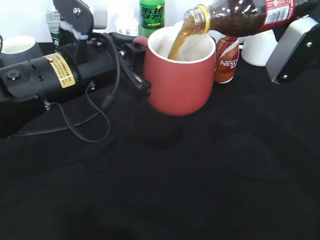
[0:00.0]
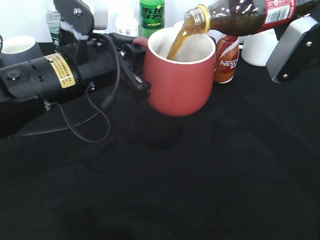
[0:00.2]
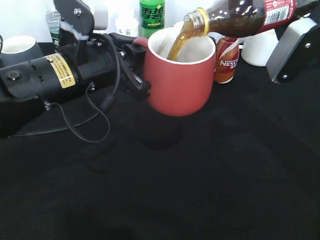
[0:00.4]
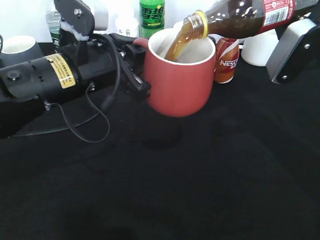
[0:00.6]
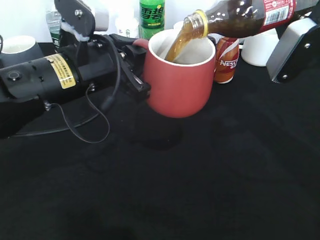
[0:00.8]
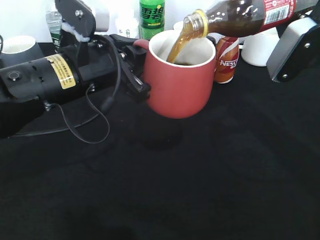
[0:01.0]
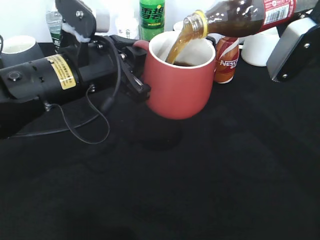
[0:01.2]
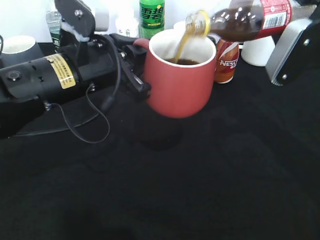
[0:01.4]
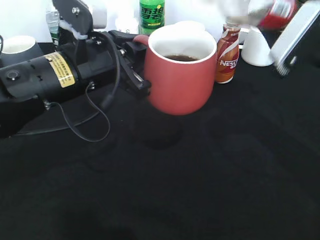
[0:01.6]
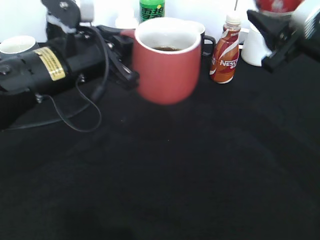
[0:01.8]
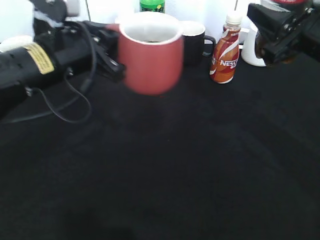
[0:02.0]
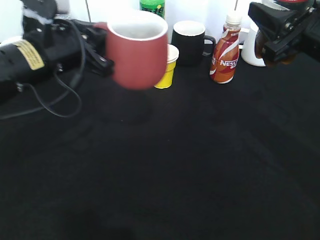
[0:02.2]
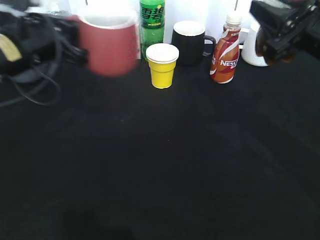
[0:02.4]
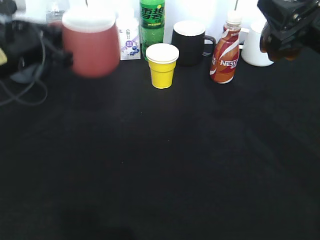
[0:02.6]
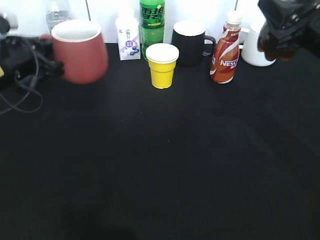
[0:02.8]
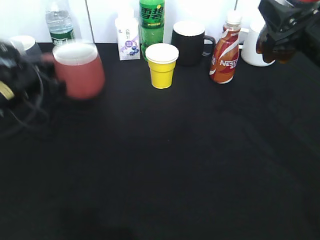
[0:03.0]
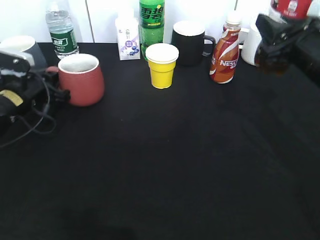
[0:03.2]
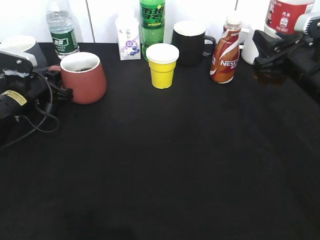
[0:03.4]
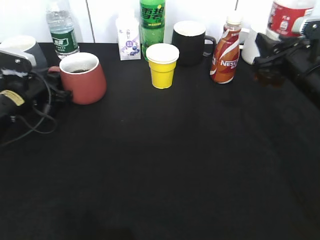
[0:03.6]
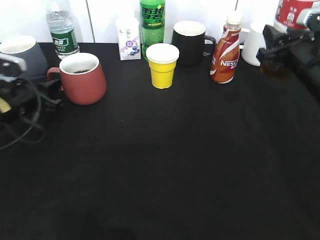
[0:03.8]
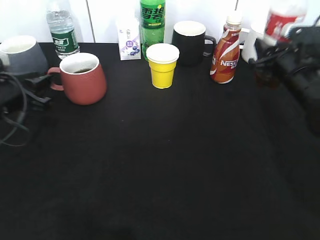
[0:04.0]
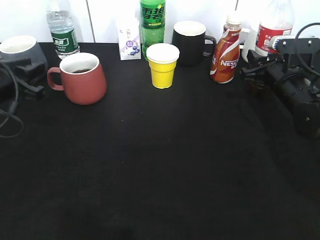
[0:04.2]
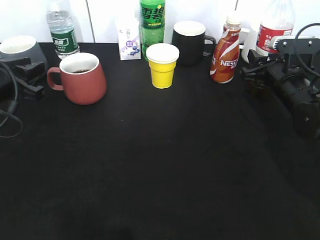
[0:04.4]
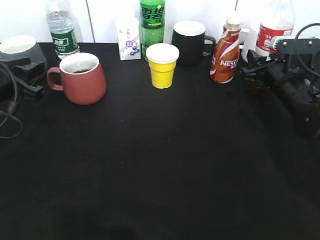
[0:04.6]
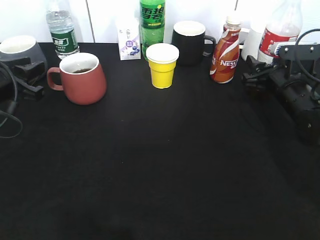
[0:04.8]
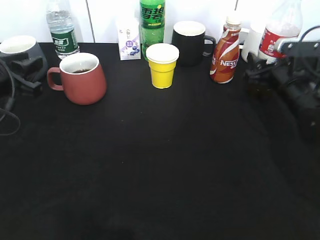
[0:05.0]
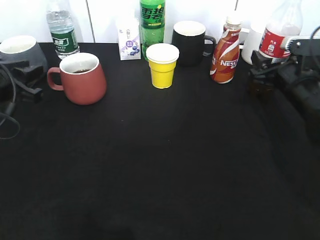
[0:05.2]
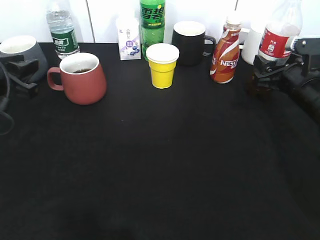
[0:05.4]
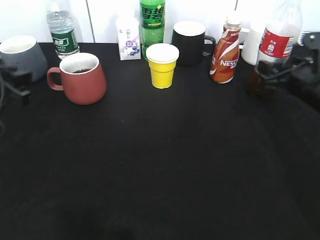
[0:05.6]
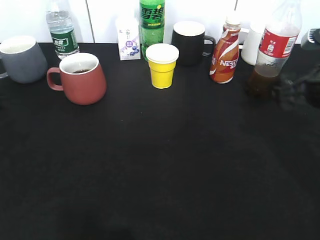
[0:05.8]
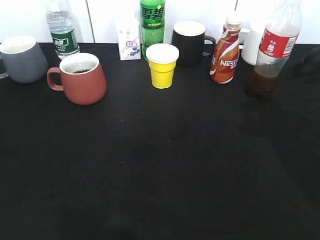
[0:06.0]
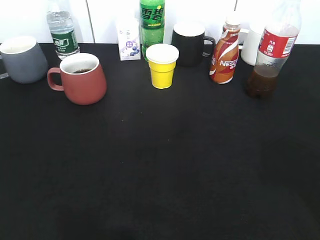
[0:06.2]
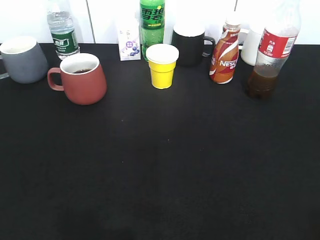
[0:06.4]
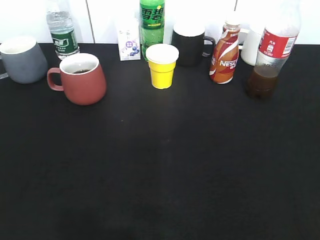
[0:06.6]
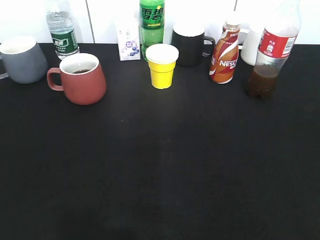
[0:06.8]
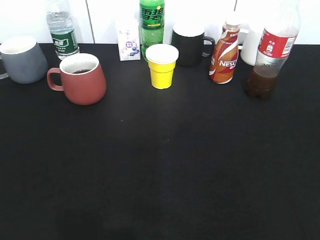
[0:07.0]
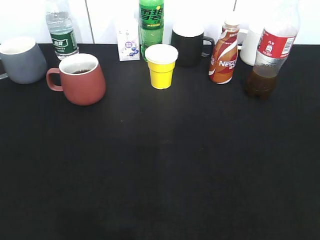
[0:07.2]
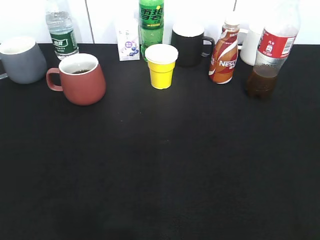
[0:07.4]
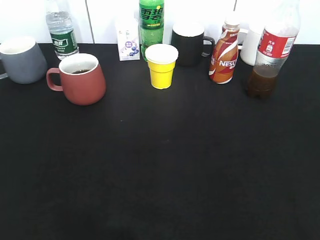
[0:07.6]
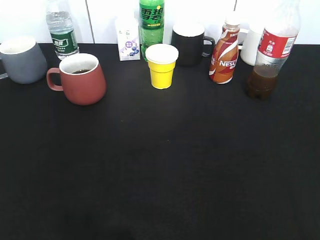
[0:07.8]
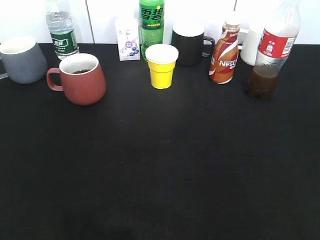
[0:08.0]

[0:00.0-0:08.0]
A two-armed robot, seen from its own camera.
Step, 0:01.6 to 0:05.4: Place the cola bottle on the table with right gripper.
0:01.6 to 0:03.2: The right gripper shifts by roughly 5 cm. Meanwhile the left gripper is displaced to the left, downward and forward by approximately 25 cm.
0:03.2 to 0:04.8: The left gripper travels backward and upward by roughly 10 cm, and opens. The right gripper travels downward and forward by some 10 cm, and opens.
0:04.8 to 0:06.4: The right gripper is displaced backward and upward by roughly 40 cm; the left gripper heads backward, covering approximately 30 cm.
0:06.4 to 0:08.0: The right gripper heads downward, covering roughly 5 cm.

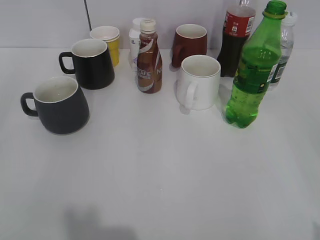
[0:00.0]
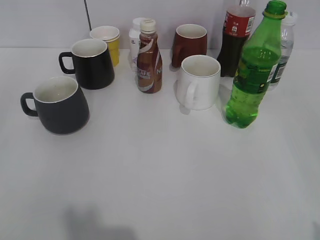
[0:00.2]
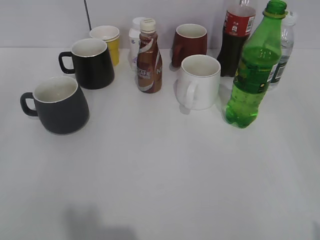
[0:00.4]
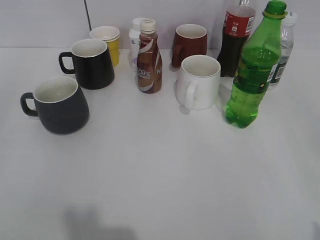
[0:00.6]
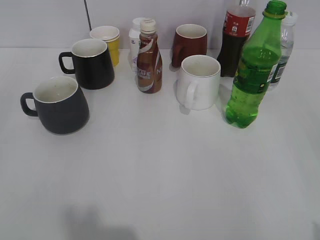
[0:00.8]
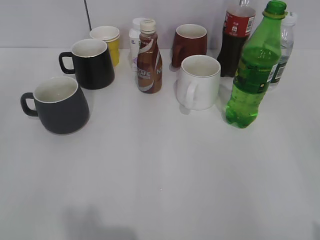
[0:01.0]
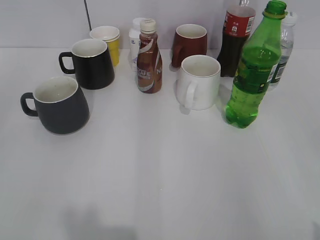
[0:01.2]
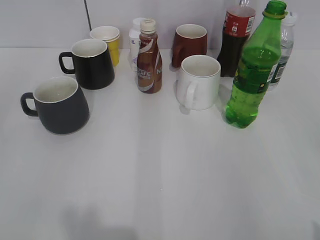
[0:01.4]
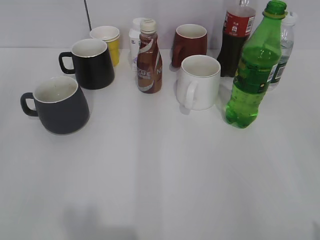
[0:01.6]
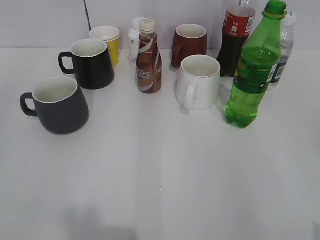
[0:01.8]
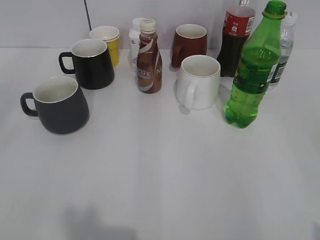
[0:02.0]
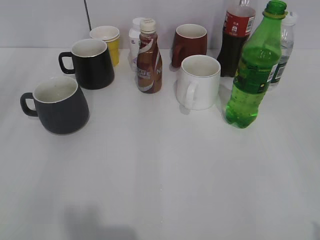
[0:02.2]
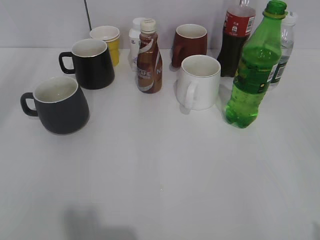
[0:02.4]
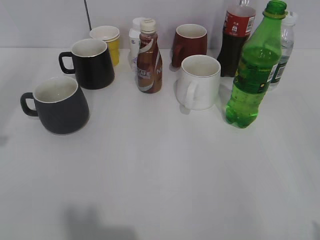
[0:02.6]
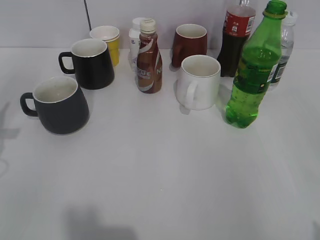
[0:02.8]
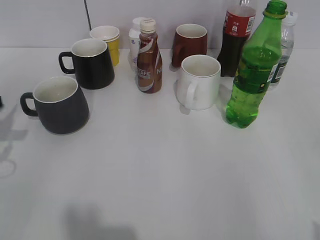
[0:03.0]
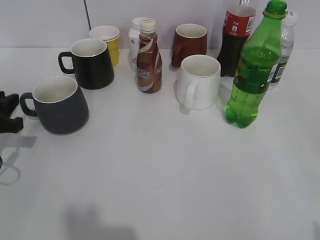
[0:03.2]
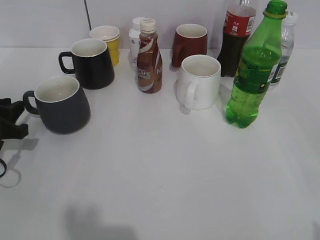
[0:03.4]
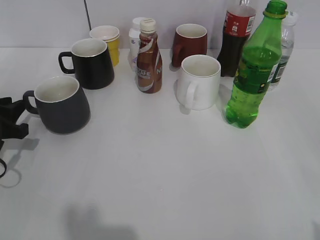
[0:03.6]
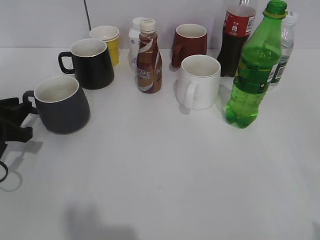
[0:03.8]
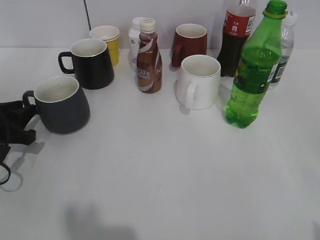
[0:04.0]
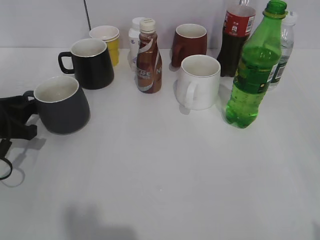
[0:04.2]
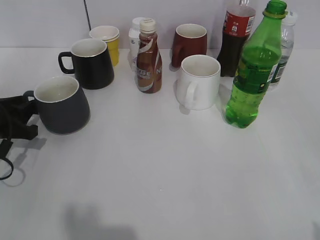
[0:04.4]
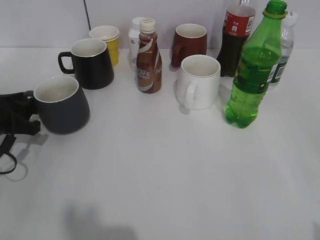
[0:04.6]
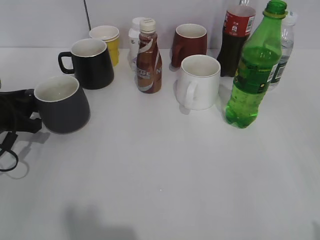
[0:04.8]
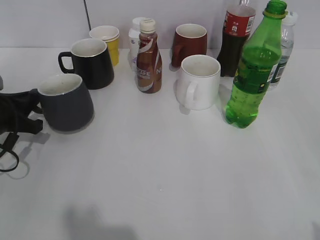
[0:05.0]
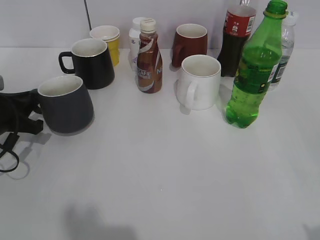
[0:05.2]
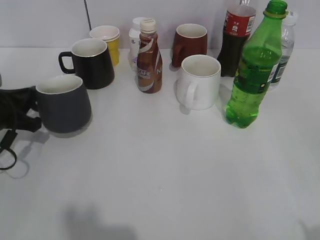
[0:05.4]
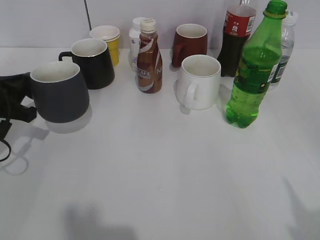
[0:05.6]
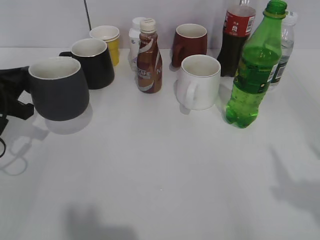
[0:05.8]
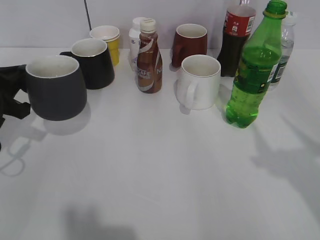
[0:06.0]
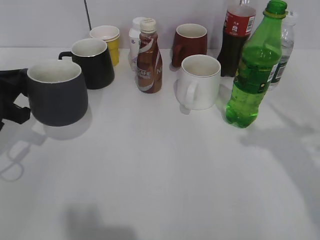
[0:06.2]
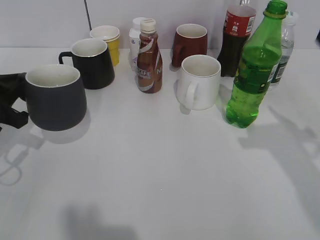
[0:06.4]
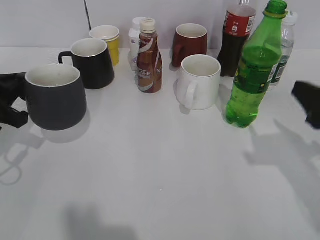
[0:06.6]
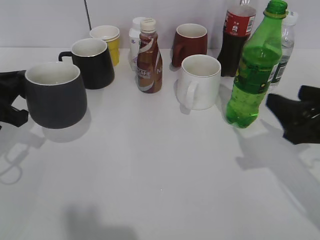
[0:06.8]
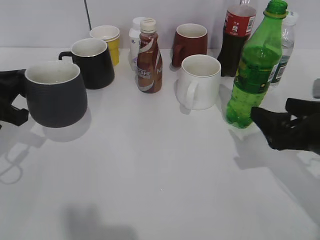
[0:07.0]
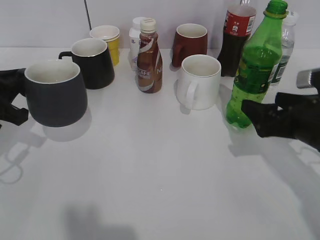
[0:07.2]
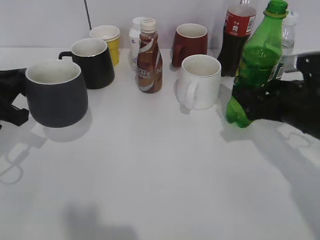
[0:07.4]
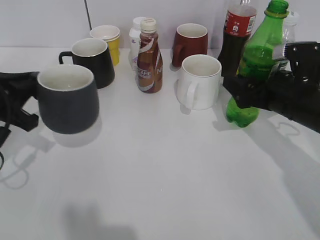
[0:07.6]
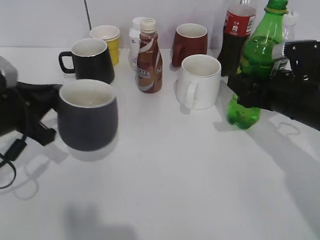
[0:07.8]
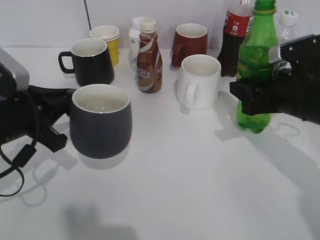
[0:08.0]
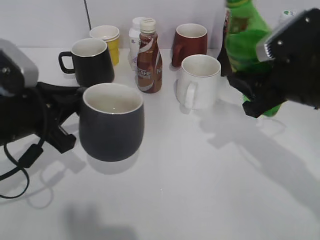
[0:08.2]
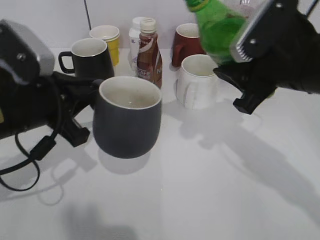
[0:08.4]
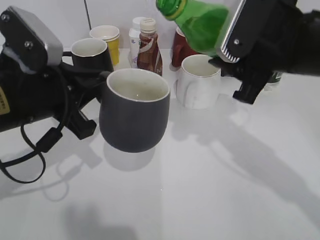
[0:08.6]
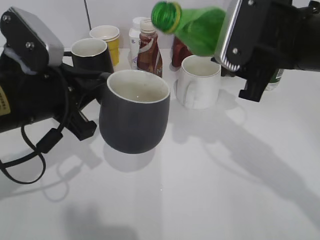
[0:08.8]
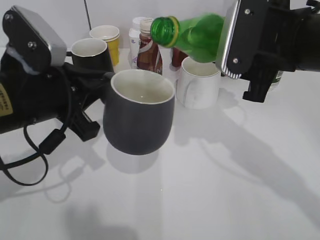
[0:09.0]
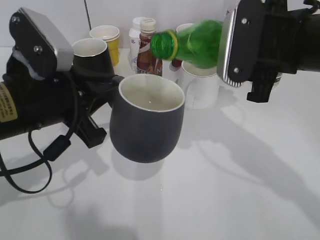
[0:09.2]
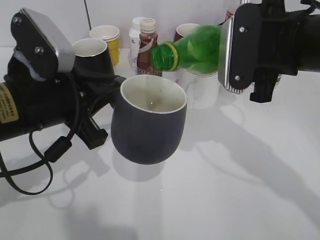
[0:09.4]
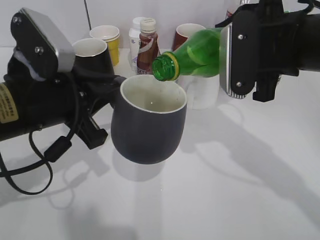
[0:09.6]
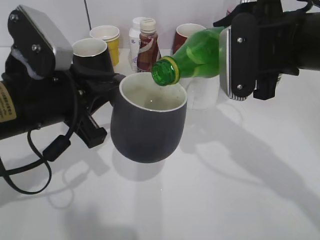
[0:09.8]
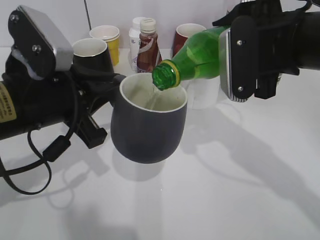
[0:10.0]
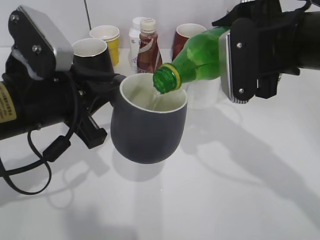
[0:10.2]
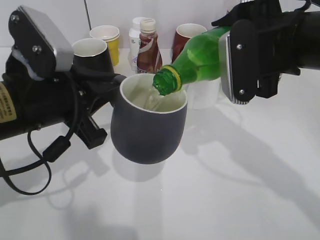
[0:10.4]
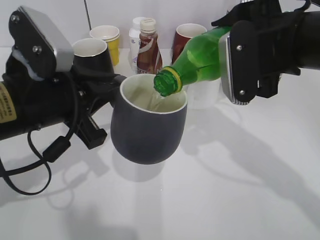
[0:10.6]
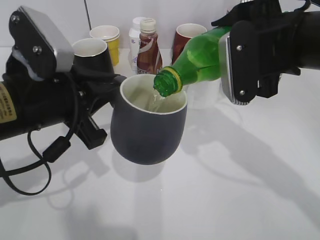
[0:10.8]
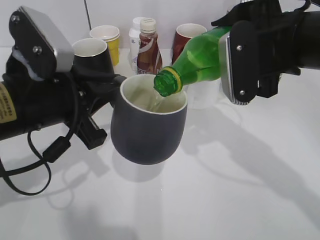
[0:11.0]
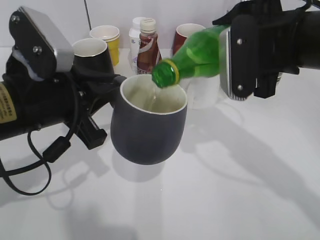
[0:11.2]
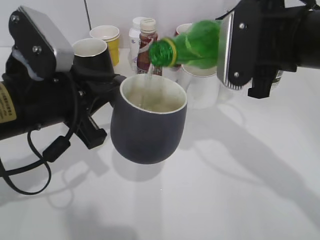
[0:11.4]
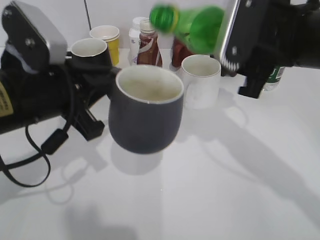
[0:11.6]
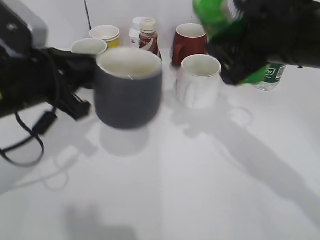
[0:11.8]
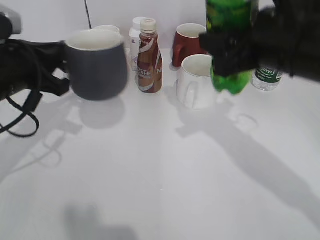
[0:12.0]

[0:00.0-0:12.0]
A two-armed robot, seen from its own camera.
Step, 0:01.8 to 0:05.0: Grasp the grey cup with left gripper.
Step, 0:05.2 to 0:06.4: Lift the grey cup with left gripper.
Step, 0:06.6 to 0:07.6: Grasp the bottle with sprite with right gripper.
Step, 0:08.0 to 0:11.4: Pour the sprite from bottle to cup with right gripper.
0:01.6 to 0:03.0: The left gripper travels forward by some 25 cm.
0:03.0 to 0:04.4: The left gripper moves downward, some 5 cm.
0:04.4 to 0:06.0: The right gripper moves forward and upward, about 15 cm. The left gripper travels upward by roughly 5 cm, and closes its fingers.
0:06.0 to 0:07.6: The right gripper is displaced downward and forward by approximately 30 cm, and opens its fingers.
0:07.6 to 0:09.0: The left gripper moves to the right, approximately 10 cm. The right gripper goes some 15 cm upward and to the left, and closes its fingers.
0:10.4 to 0:12.0: The left gripper travels to the left and forward by approximately 10 cm.

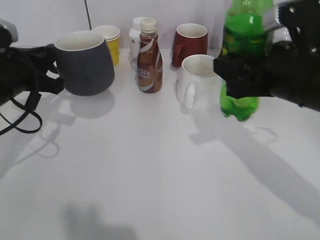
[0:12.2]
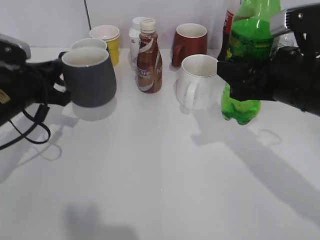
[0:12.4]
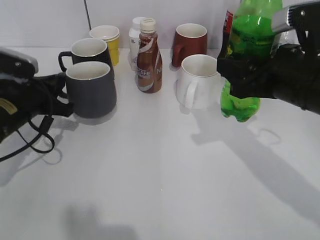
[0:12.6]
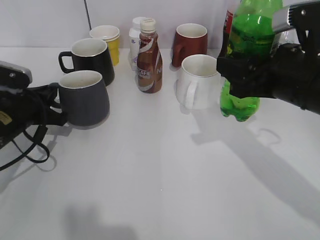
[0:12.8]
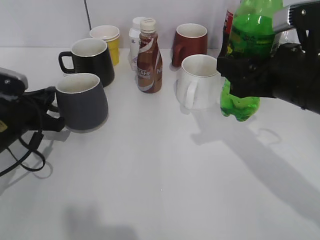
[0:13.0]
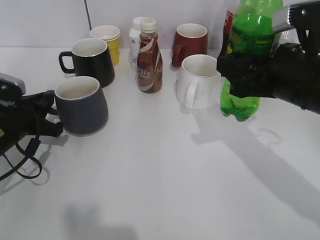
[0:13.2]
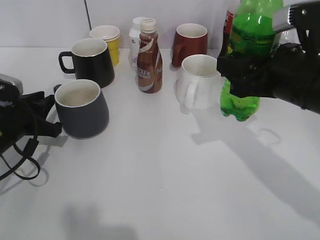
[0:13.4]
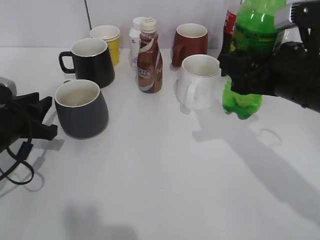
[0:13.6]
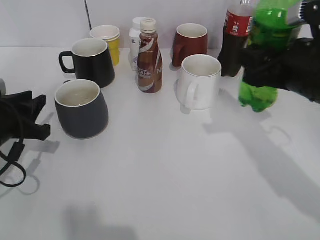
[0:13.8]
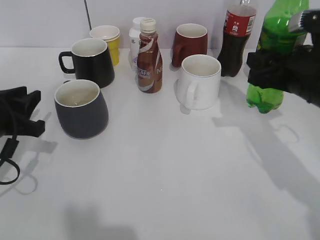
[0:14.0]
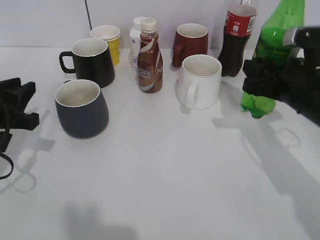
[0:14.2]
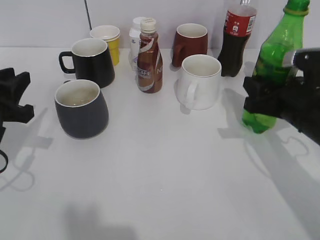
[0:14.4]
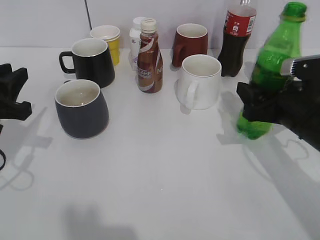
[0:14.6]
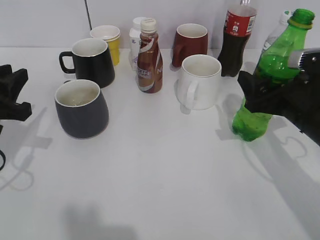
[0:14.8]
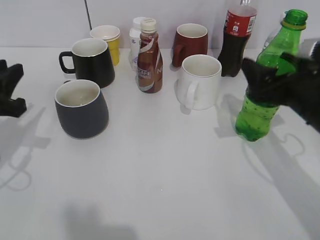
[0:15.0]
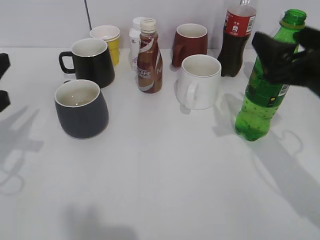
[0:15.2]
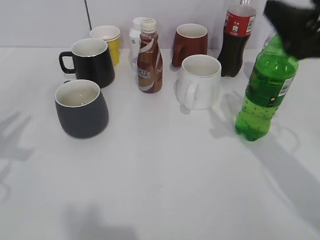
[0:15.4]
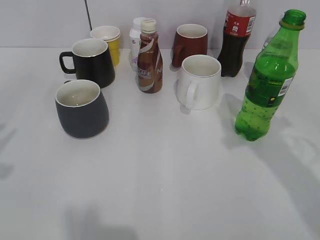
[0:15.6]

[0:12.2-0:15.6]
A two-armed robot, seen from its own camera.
Step, 0:12.2 to 0:13.4: Place the grey cup on the table with left gripper.
Step, 0:13.6 to 0:15.0: Place the sprite bottle on the table with right gripper.
0:12.2 to 0:13.8: The left gripper is displaced downward by some 5 cm, and opens.
0:13.8 to 0:15.6: The left gripper heads upward and backward, covering some 20 cm. Meanwhile the right gripper moves upward and backward, approximately 15 cm, and opens its fingers.
